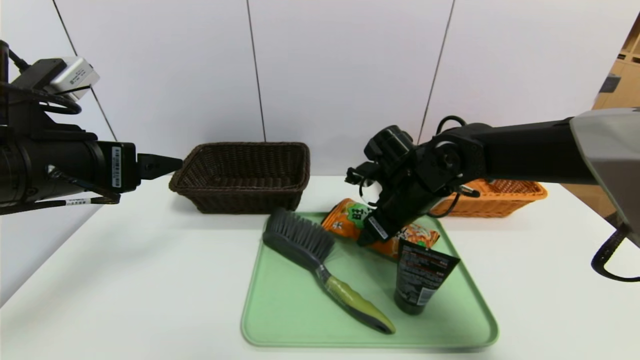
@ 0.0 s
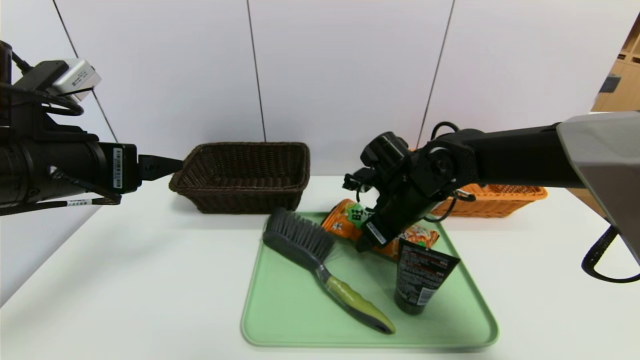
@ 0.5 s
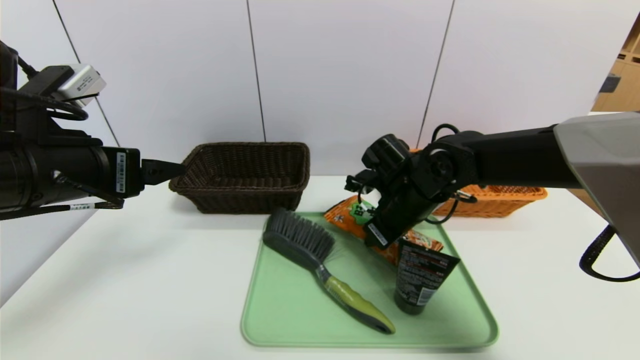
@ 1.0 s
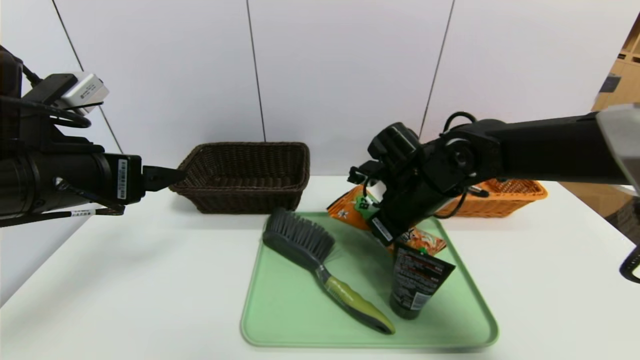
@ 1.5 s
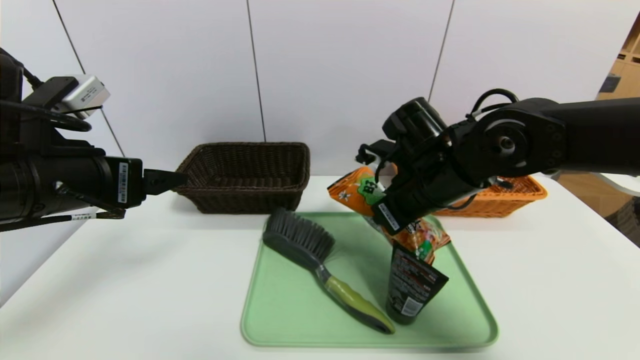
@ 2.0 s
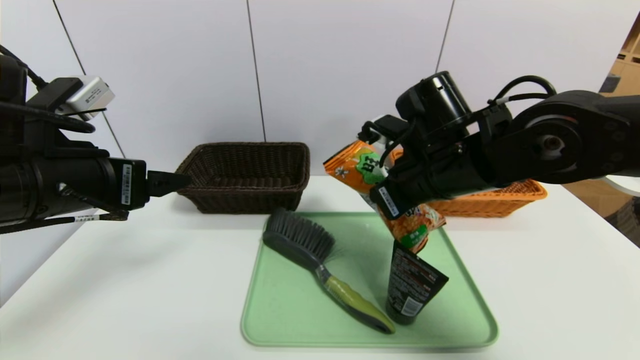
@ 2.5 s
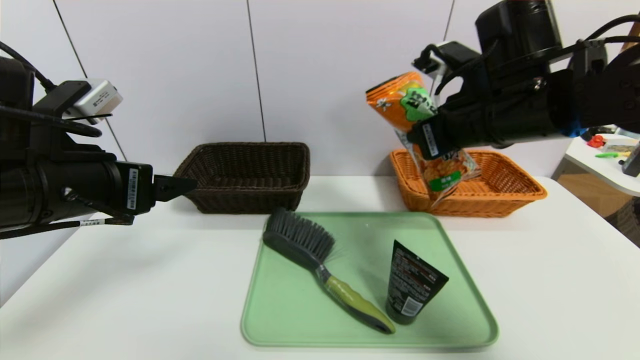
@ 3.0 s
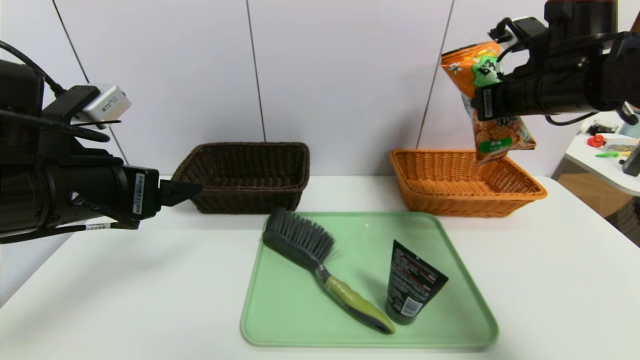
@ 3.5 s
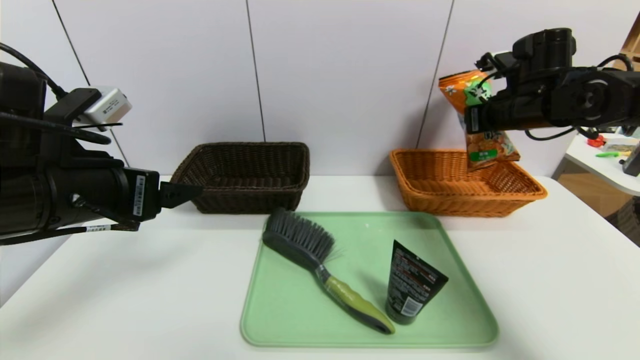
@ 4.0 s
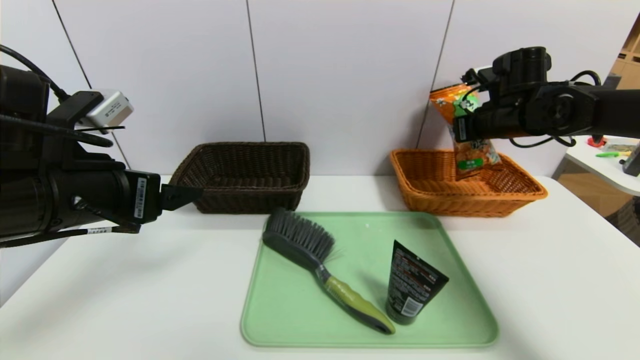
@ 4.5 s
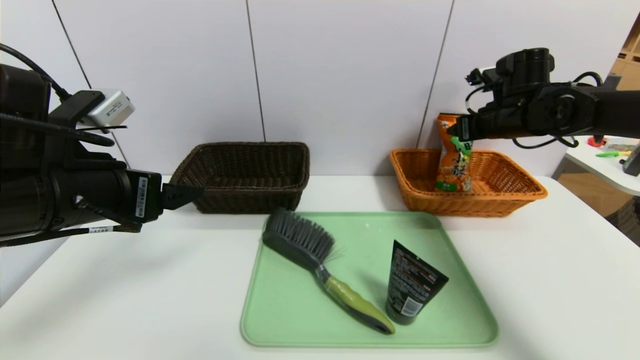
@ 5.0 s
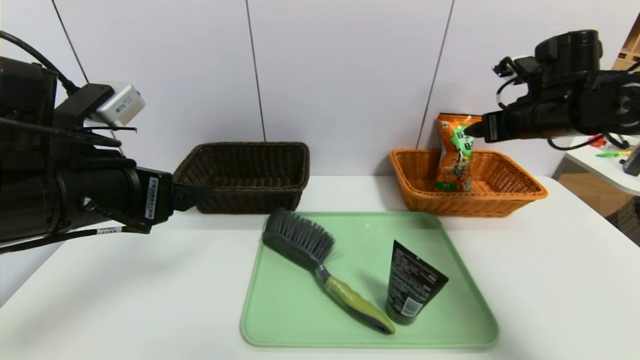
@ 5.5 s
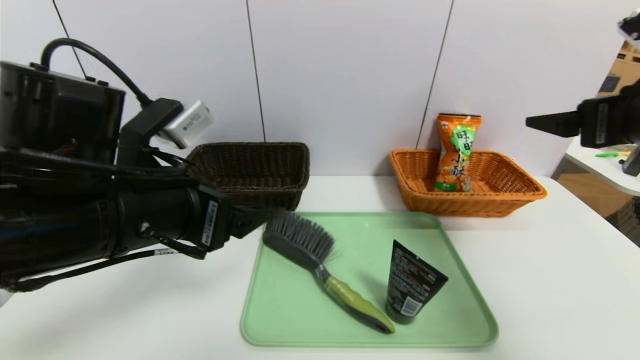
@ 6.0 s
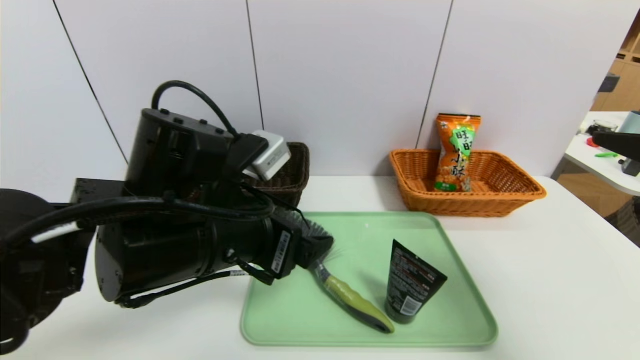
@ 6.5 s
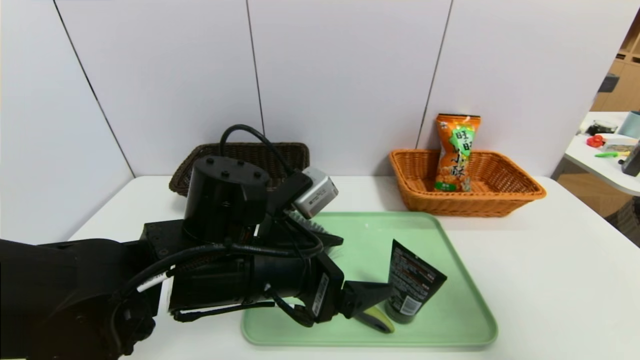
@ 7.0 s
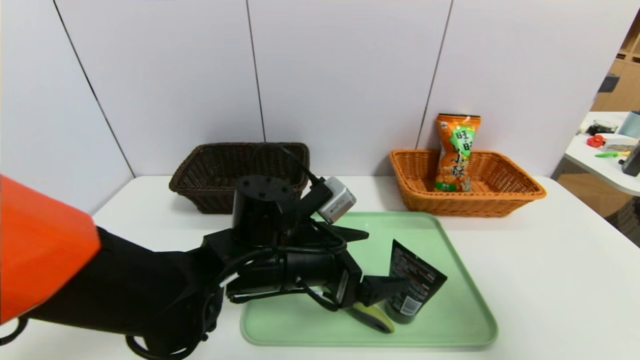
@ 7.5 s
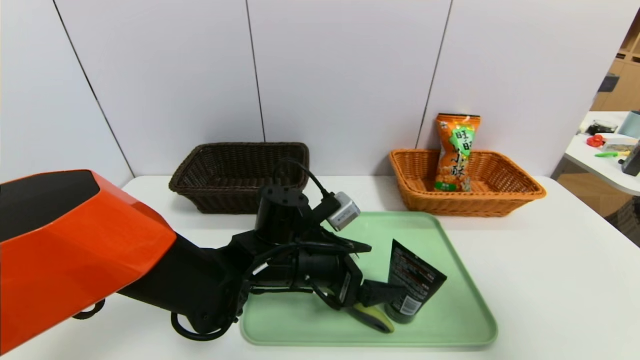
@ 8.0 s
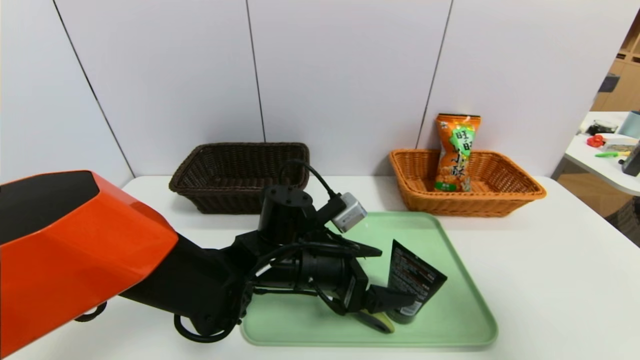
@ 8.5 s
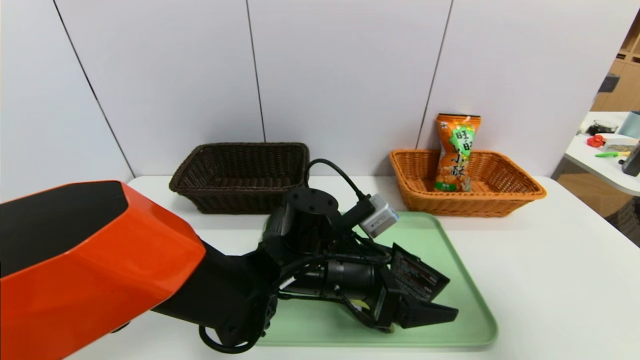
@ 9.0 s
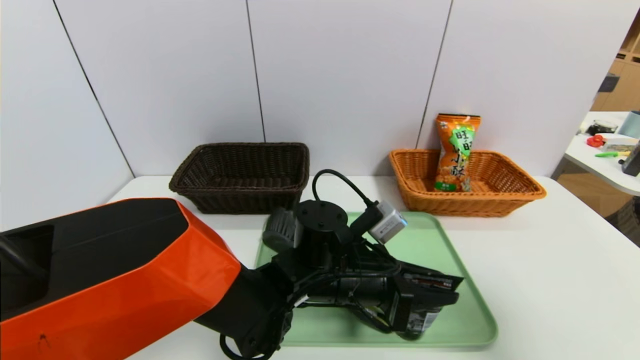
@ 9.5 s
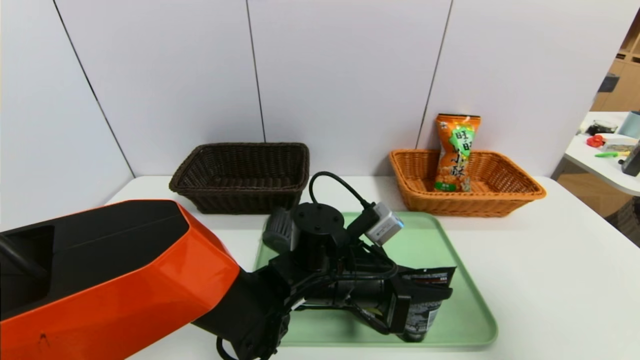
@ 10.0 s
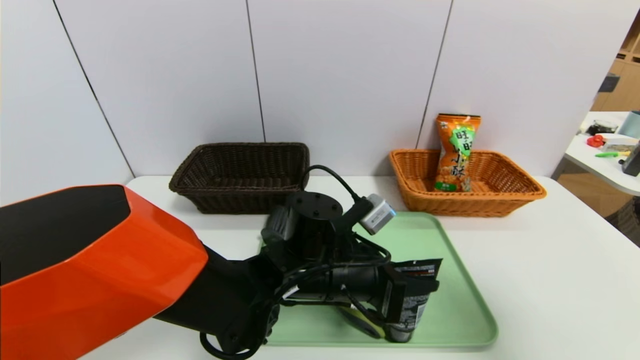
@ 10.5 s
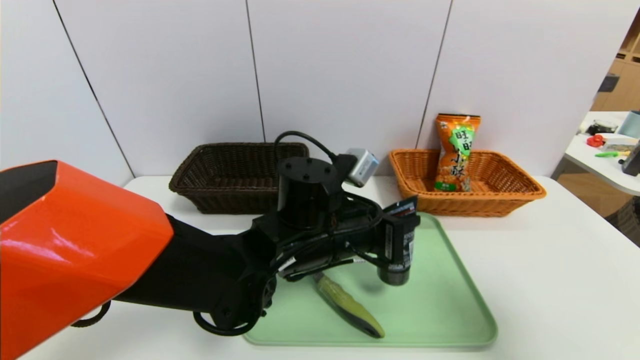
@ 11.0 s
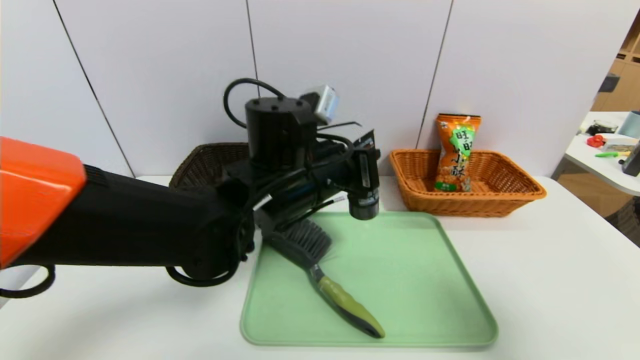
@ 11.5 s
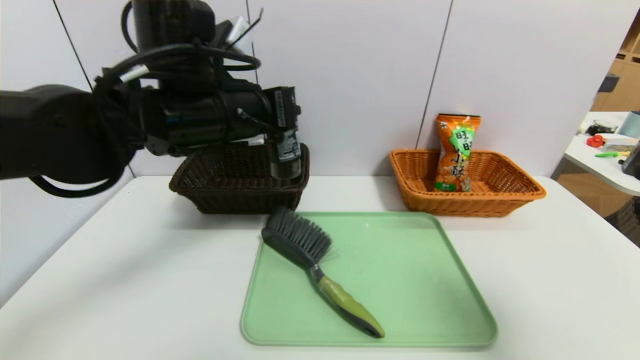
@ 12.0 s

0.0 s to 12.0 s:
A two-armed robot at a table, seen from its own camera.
Task of the whole recording: place the food in the right basket with the right gripper, and place the non food items in the left basket with the left gripper.
Step, 0.0 to 5.0 s: Grasp the cookie and put it in the right basket.
0.0 to 2.0 s: The right gripper ends up roughly 5 cm from where it was, and closes.
2.0 to 4.0 s: The right gripper travels to the right and forward by some 20 cm.
4.0 to 6.0 s: The right gripper travels backward by some 20 cm, and opens its fingers. Meanwhile the left gripper heads to the right, covering roughly 5 cm.
6.0 to 8.0 s: The left gripper shifts some 20 cm downward, to the right and forward. The right gripper travels backward by approximately 15 cm.
8.0 to 10.0 s: The left gripper shifts approximately 5 cm to the right, and closes up.
10.0 to 12.0 s: The left gripper travels upward and to the left by roughly 25 cm.

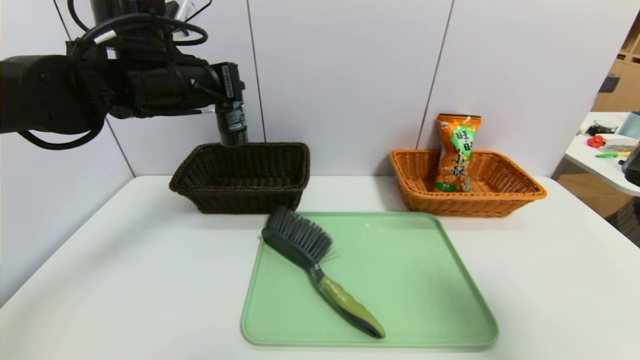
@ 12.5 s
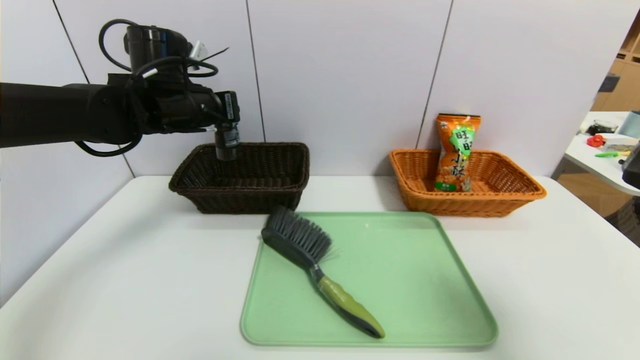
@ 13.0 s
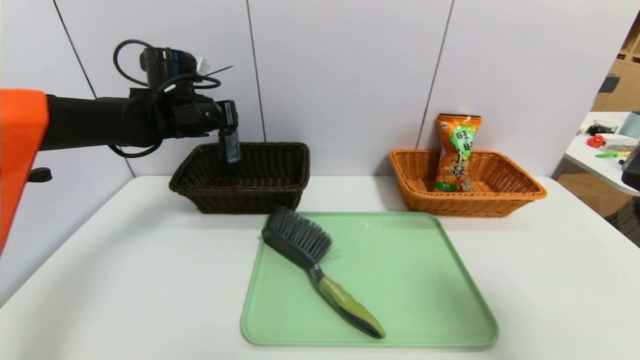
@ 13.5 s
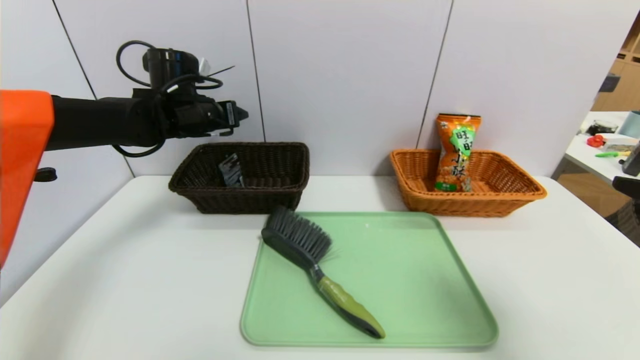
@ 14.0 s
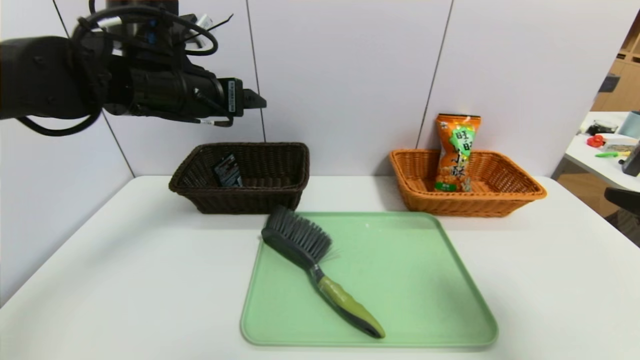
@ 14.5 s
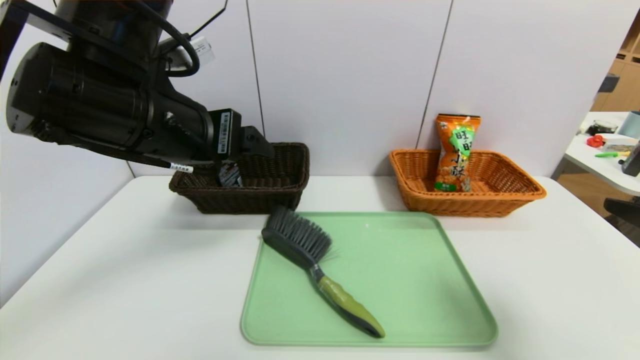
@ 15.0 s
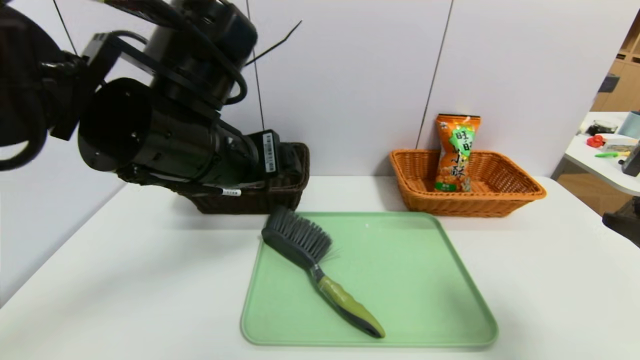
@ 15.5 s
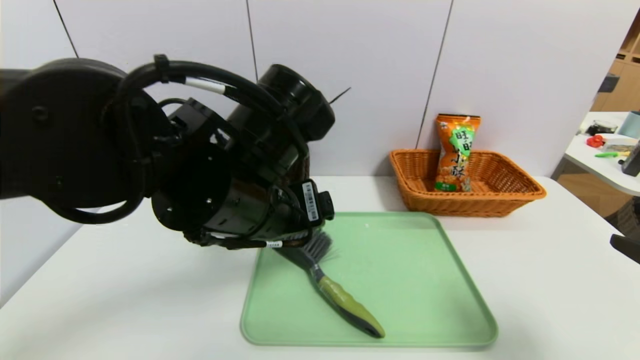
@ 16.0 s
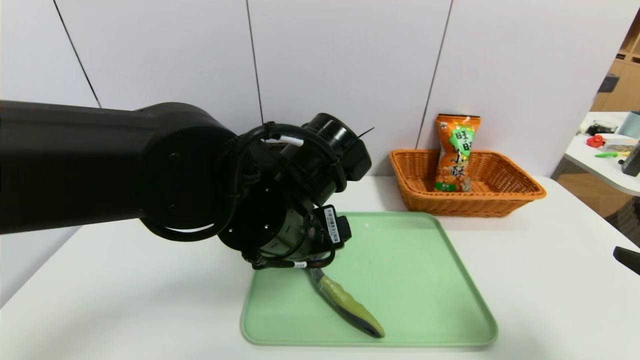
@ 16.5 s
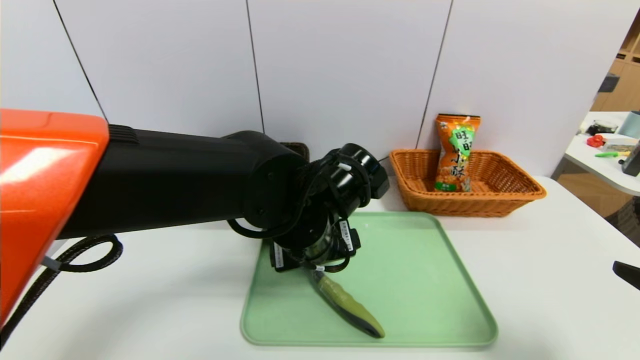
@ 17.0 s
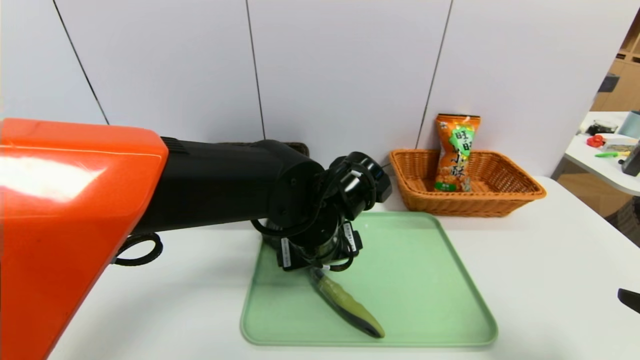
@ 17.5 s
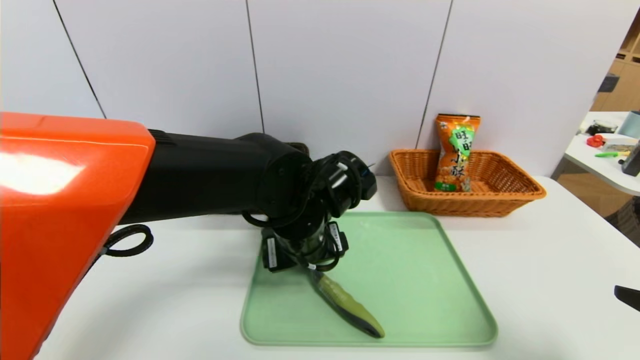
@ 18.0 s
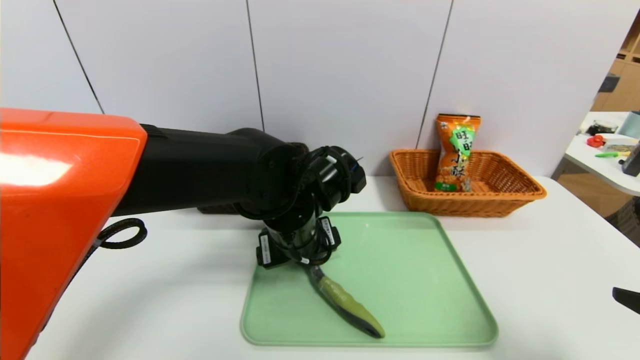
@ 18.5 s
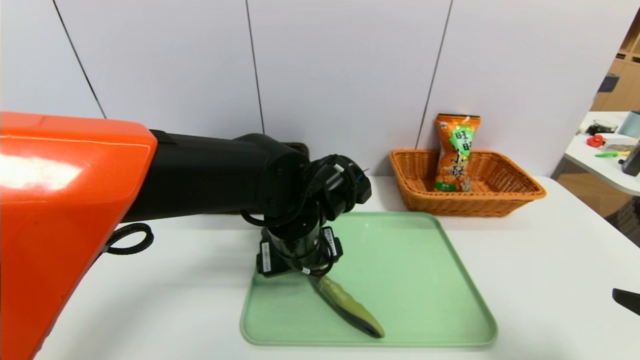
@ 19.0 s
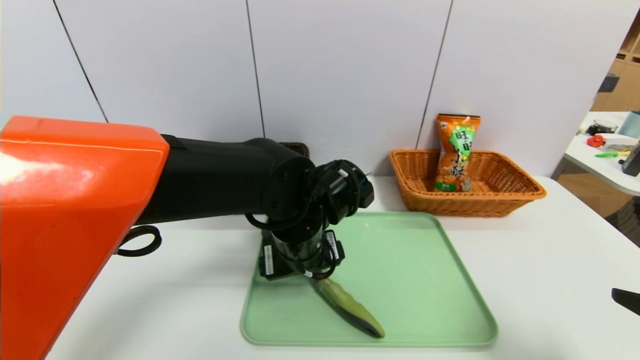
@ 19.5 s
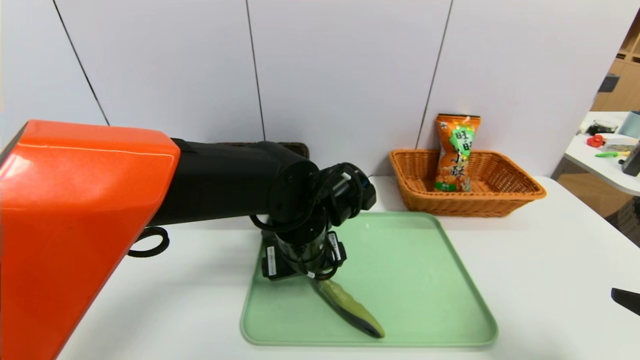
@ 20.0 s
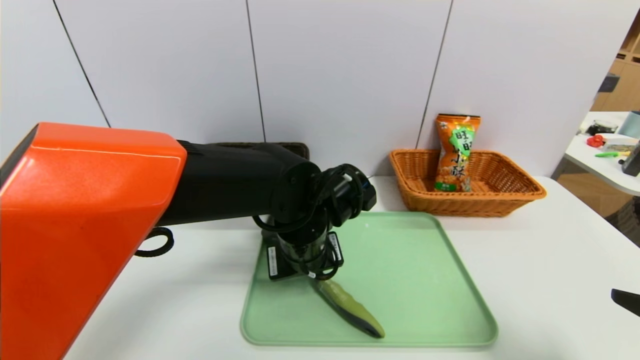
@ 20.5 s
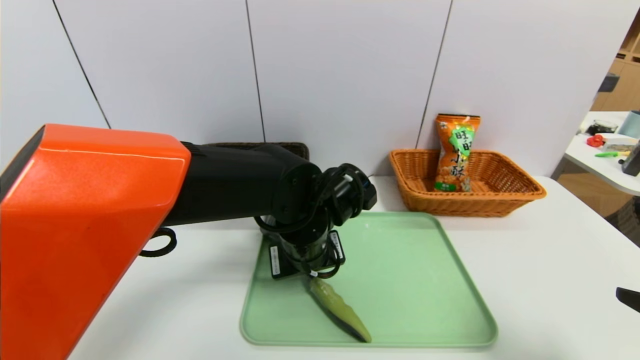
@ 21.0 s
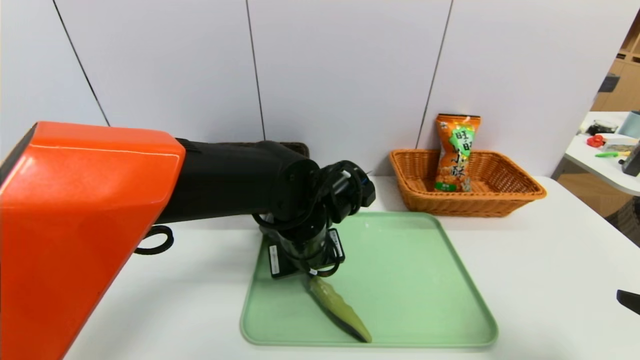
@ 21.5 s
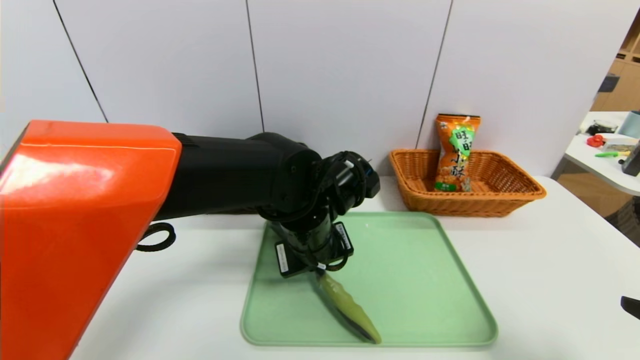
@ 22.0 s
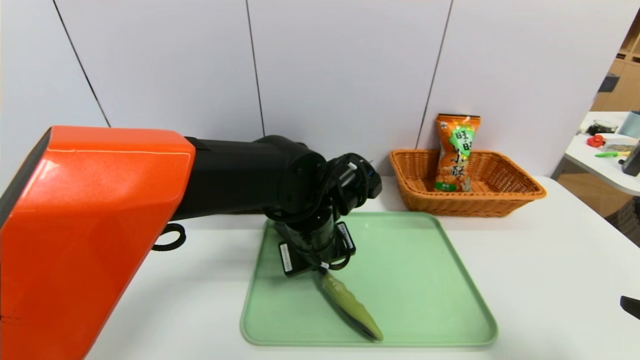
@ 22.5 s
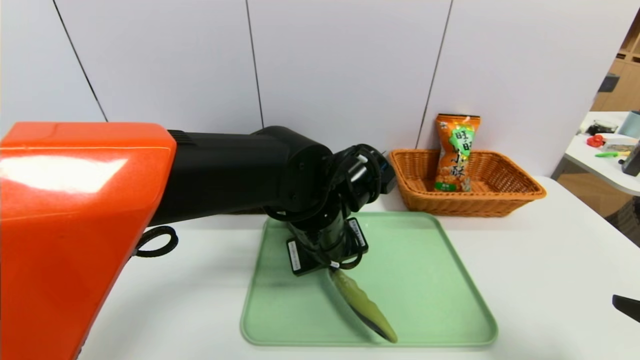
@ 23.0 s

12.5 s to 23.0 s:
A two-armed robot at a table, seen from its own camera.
Task of the whole recording: place the food in the right basket with the right gripper, and place the non food items in the left basket with the left gripper.
12.5 to 14.5 s: The left gripper reaches roughly 10 cm forward, then returns, and opens up.
14.5 to 16.5 s: The right gripper moves approximately 5 cm. Meanwhile the left gripper shifts some 20 cm to the right, backward and downward.
16.5 to 19.0 s: The left gripper is displaced downward by some 5 cm.
19.0 to 21.0 s: The left gripper closes its fingers.
21.0 to 23.0 s: There are only small adjustments of the grippers.
